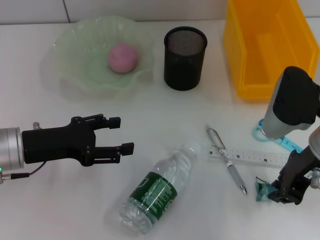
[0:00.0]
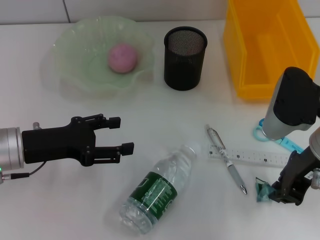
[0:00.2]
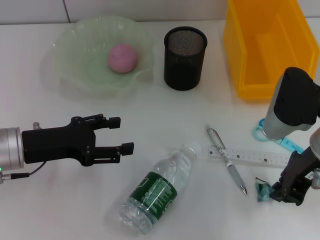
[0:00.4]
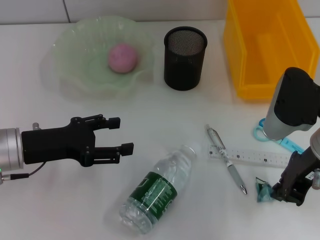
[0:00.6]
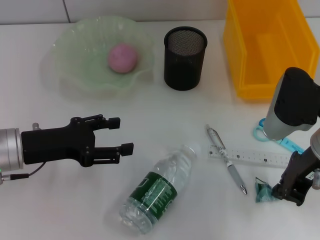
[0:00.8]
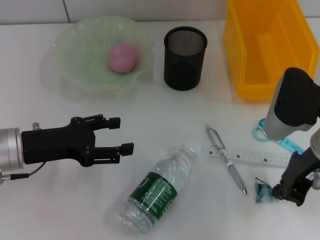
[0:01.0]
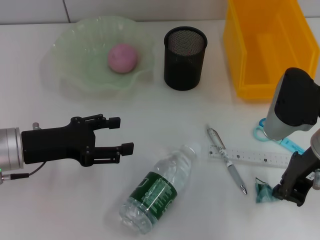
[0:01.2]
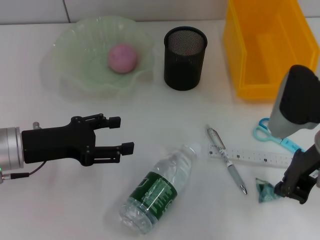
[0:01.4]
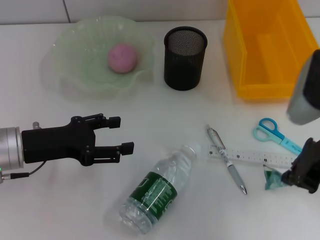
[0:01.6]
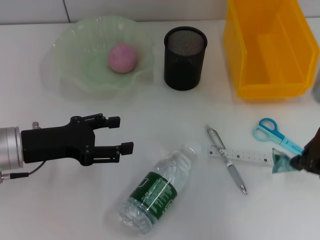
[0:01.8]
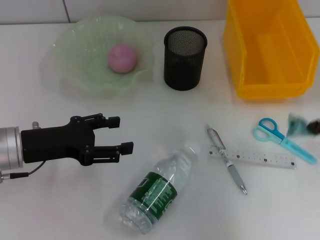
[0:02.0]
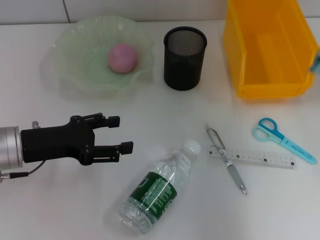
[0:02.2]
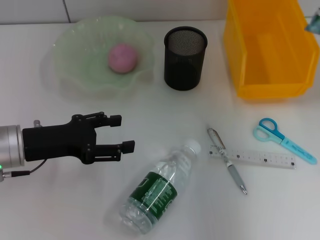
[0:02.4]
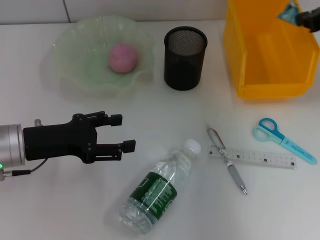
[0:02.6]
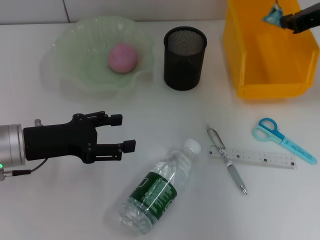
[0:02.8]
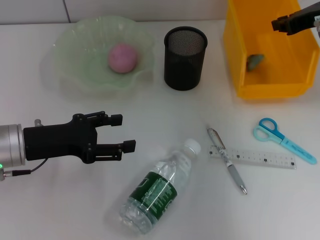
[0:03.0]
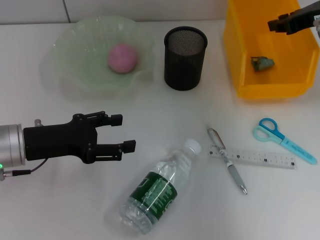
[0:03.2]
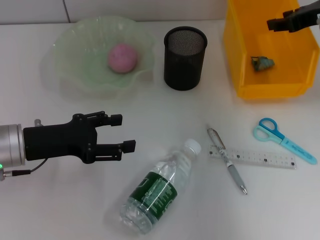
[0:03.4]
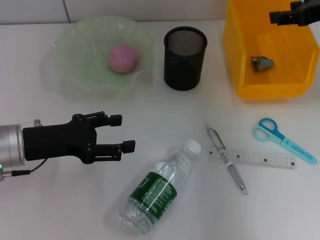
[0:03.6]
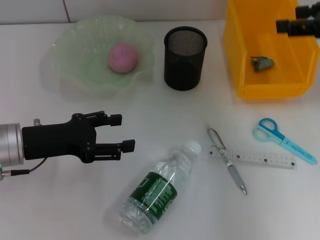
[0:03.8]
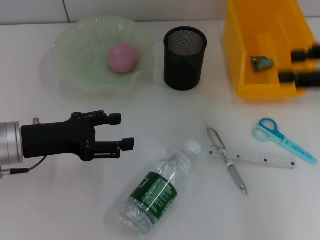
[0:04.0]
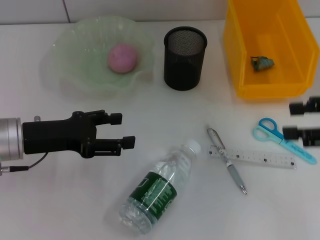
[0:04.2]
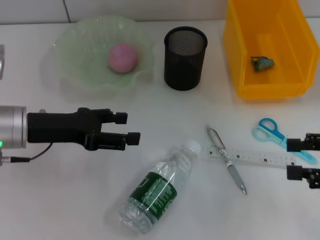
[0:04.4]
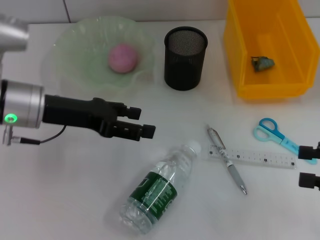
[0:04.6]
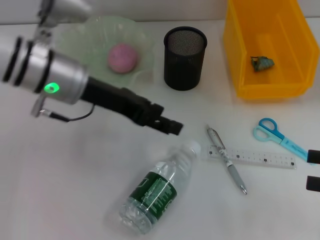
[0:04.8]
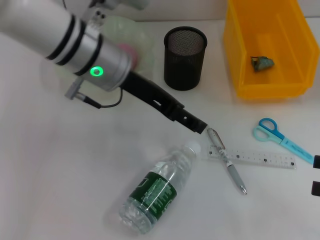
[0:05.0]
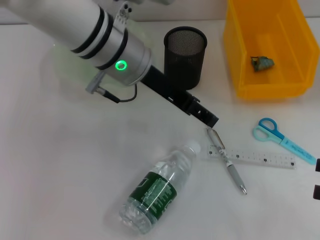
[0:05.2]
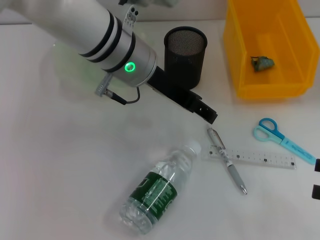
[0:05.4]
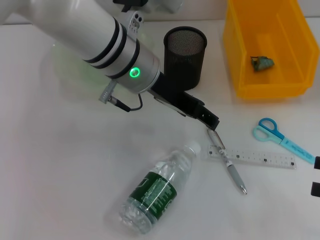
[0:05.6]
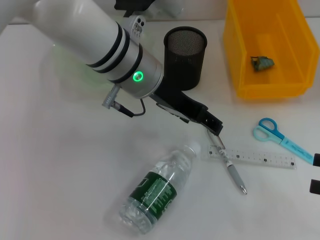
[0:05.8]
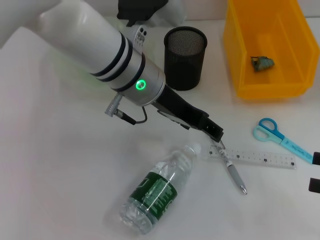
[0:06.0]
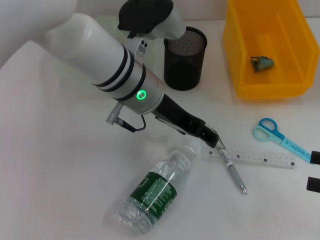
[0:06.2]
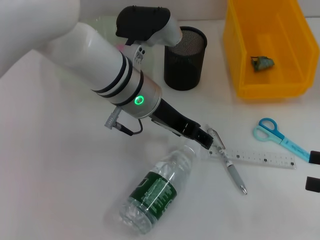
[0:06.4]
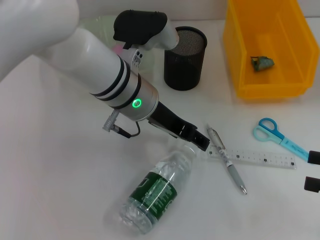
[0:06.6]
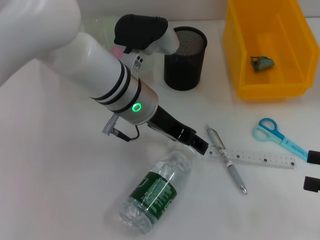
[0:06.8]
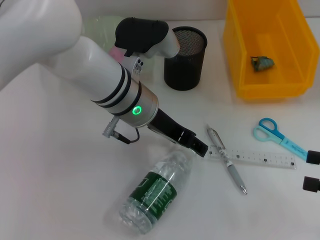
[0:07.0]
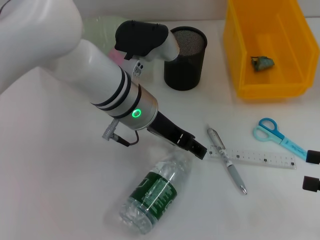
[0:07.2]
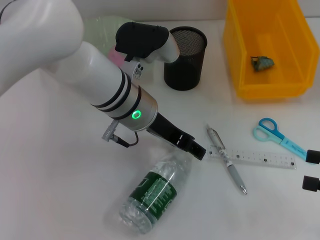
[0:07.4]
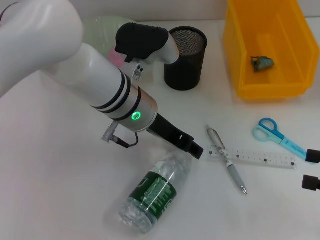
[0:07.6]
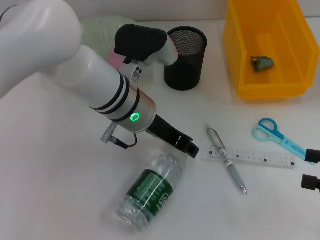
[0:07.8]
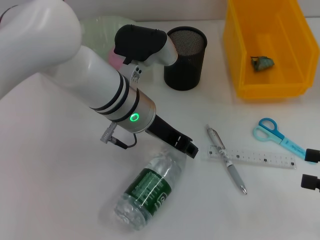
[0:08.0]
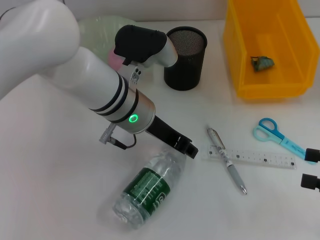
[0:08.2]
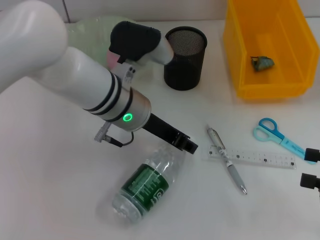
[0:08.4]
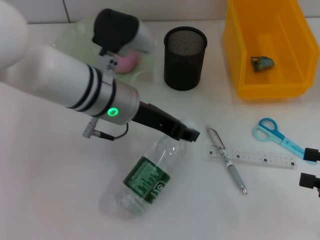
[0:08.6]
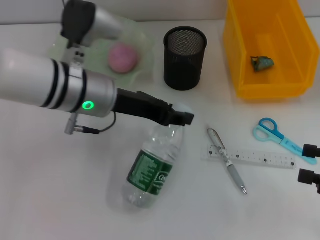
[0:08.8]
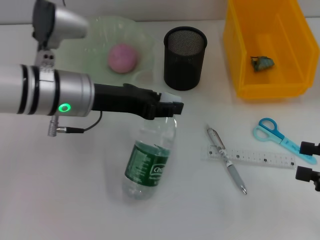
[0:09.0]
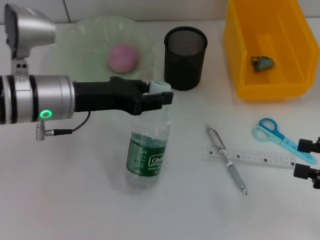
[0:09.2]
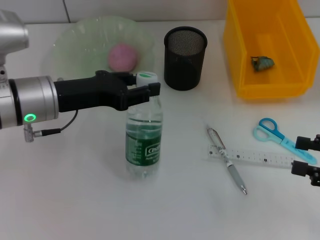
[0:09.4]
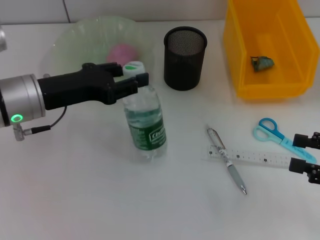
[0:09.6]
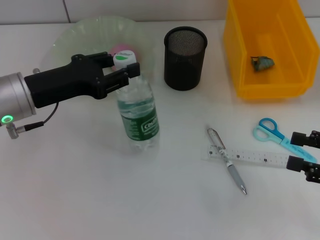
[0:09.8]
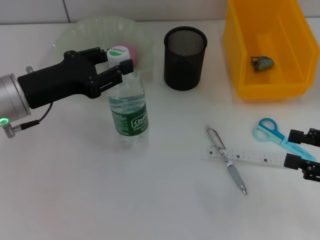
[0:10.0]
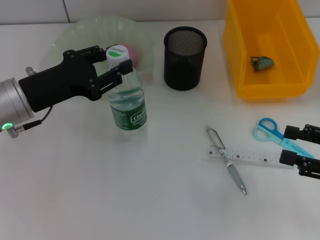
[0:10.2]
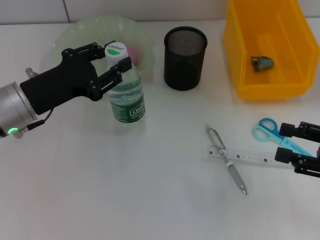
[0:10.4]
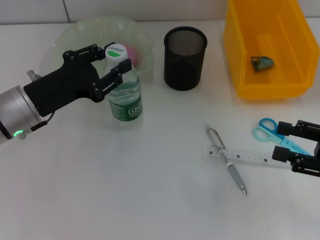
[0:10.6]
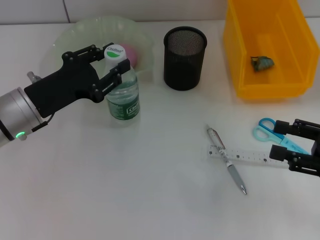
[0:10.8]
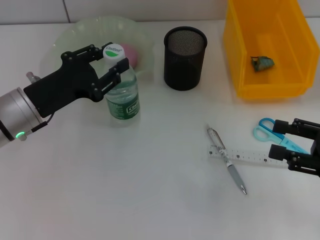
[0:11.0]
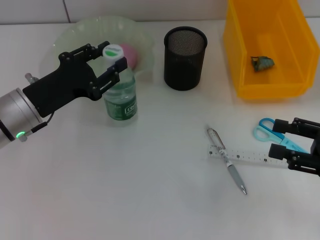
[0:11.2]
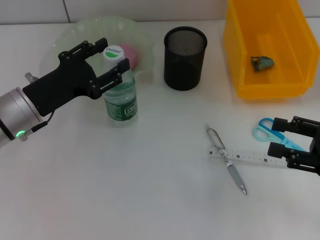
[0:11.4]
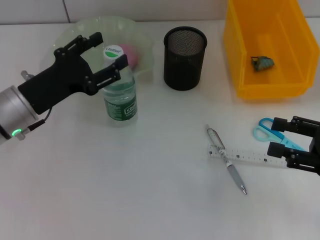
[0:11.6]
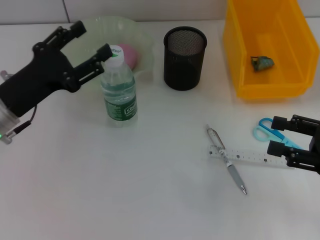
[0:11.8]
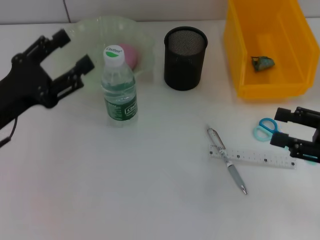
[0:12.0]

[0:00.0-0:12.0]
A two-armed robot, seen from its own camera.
Step, 0:01.4 to 0:03.0: Place the plastic into the trash can with the right hand.
Step, 0:03.2 to 0:08.0: Grab the water bottle with the left hand.
Step, 0:08.2 to 0:11.2: Place the water bottle on the table with the left hand.
0:00.0 to 0:01.6: The grippers stay close to where they were, moving slightly.
0:01.6 to 0:03.0: The right gripper goes roughly 15 cm forward.
0:03.0 to 0:04.4: The right gripper is displaced backward by about 20 cm, and opens its fingers.
0:04.4 to 0:06.0: The left gripper heads to the right, covering approximately 20 cm; the right gripper moves roughly 5 cm.
0:06.0 to 0:07.6: The left gripper changes place by roughly 5 cm.
0:07.6 to 0:09.0: The left gripper heads to the left, covering approximately 10 cm, and closes up.
0:09.0 to 0:10.4: The left gripper travels to the left by about 10 cm.
0:10.4 to 0:12.0: The left gripper moves about 5 cm, and opens.

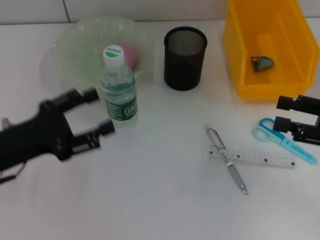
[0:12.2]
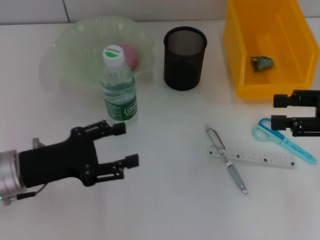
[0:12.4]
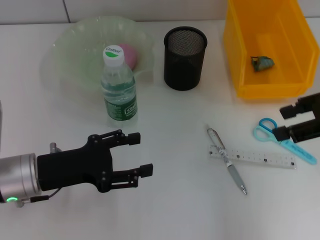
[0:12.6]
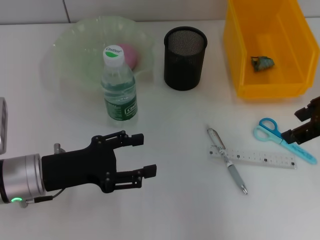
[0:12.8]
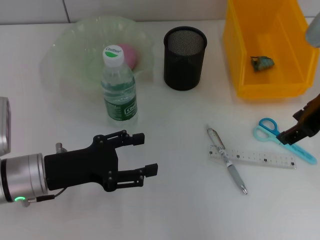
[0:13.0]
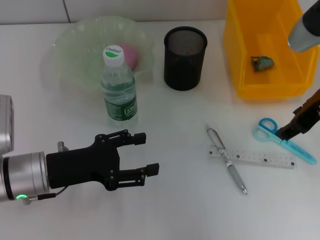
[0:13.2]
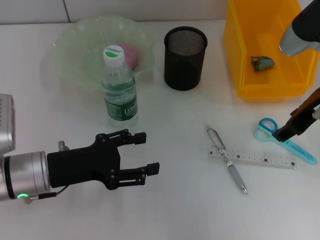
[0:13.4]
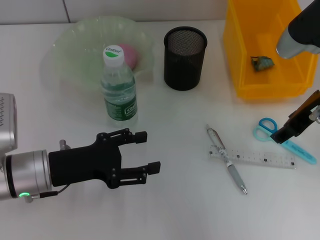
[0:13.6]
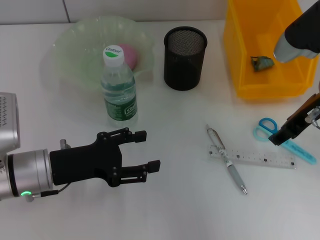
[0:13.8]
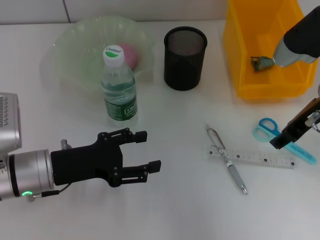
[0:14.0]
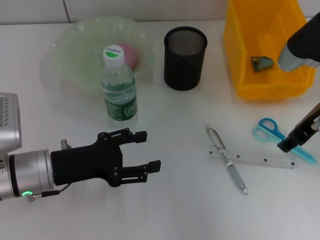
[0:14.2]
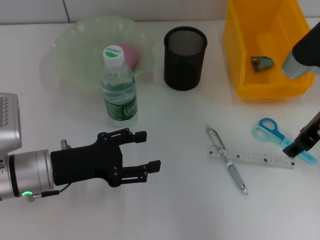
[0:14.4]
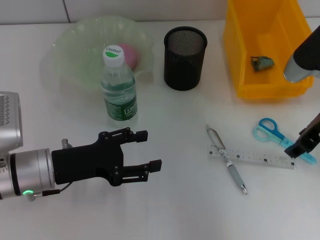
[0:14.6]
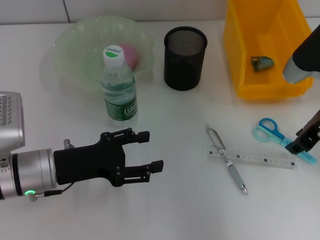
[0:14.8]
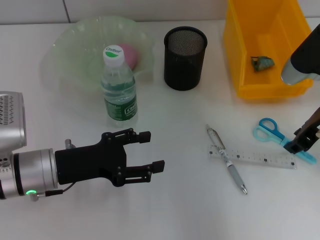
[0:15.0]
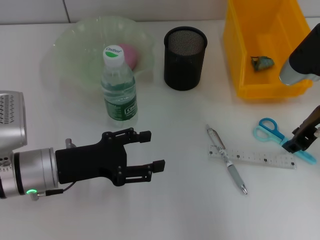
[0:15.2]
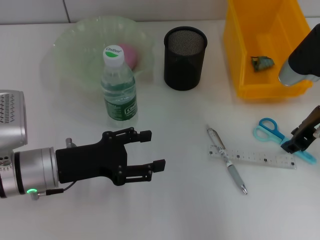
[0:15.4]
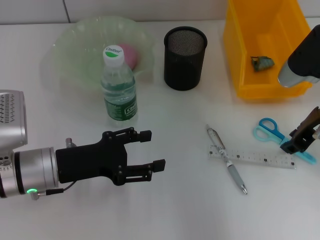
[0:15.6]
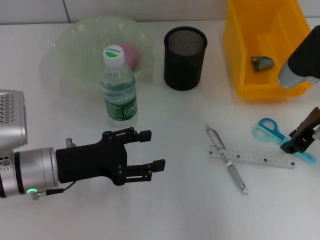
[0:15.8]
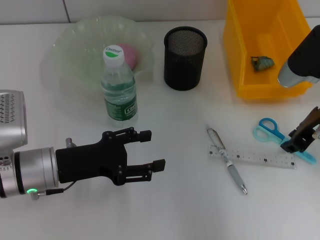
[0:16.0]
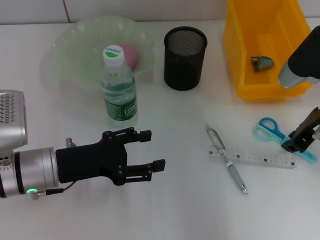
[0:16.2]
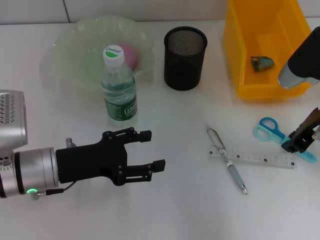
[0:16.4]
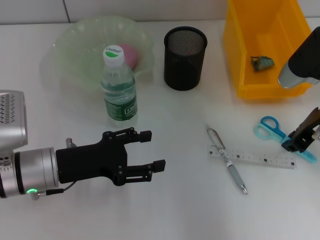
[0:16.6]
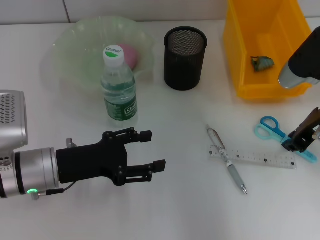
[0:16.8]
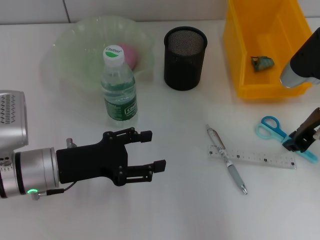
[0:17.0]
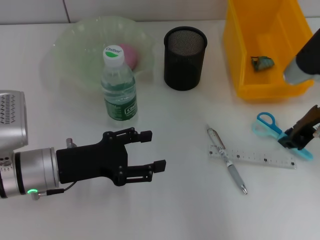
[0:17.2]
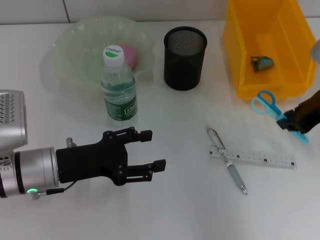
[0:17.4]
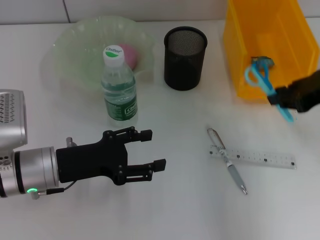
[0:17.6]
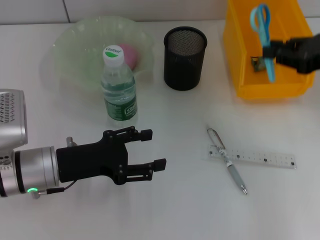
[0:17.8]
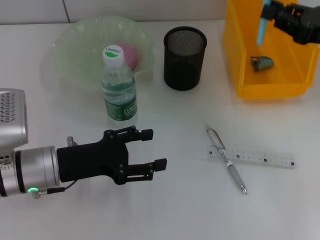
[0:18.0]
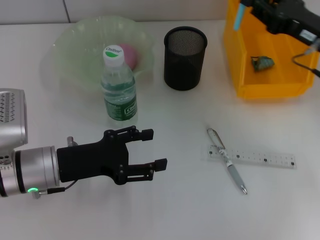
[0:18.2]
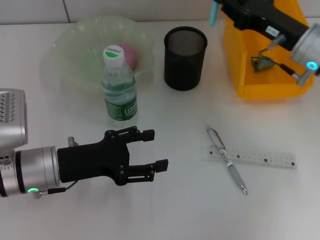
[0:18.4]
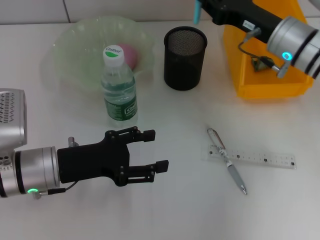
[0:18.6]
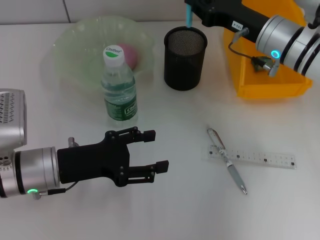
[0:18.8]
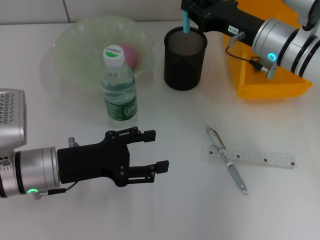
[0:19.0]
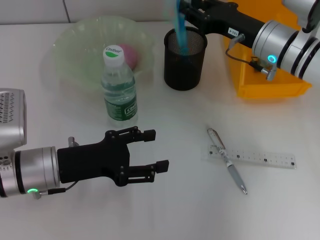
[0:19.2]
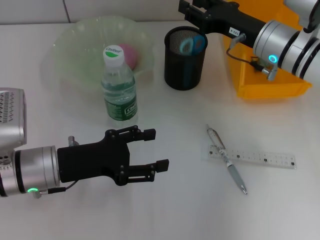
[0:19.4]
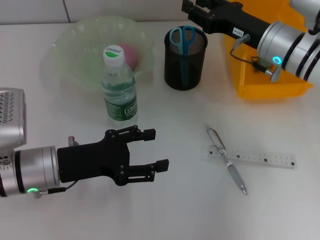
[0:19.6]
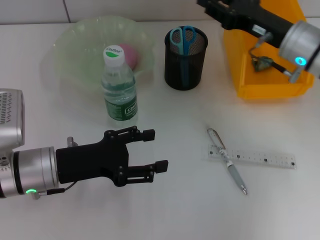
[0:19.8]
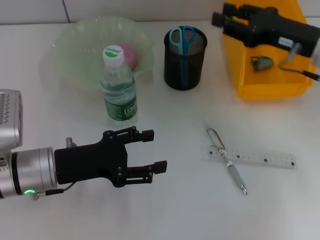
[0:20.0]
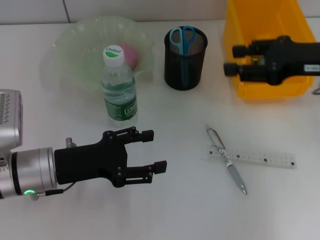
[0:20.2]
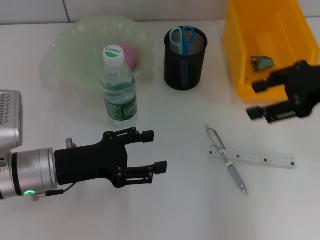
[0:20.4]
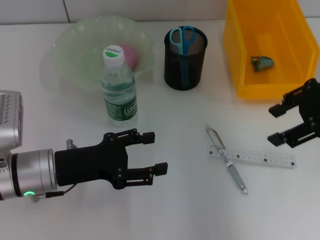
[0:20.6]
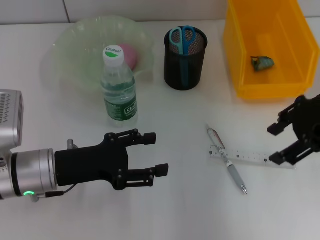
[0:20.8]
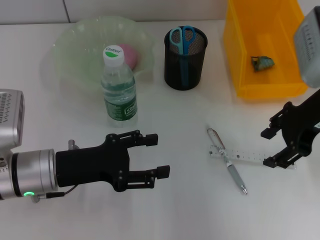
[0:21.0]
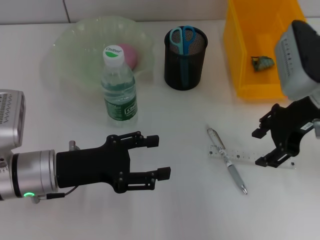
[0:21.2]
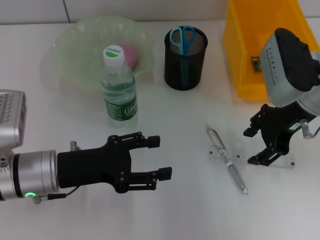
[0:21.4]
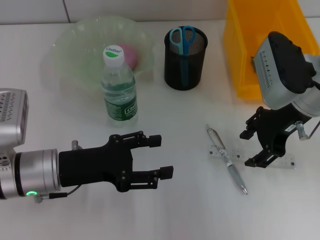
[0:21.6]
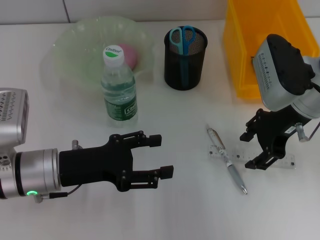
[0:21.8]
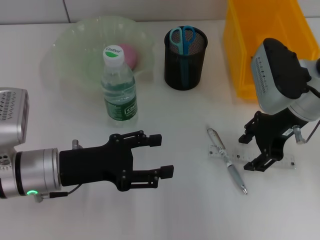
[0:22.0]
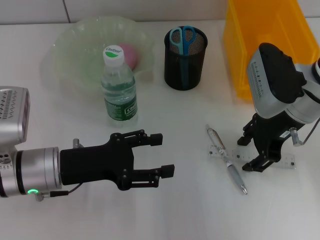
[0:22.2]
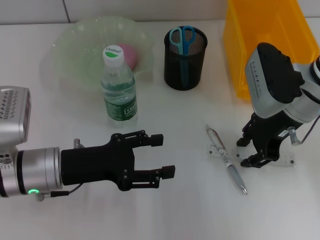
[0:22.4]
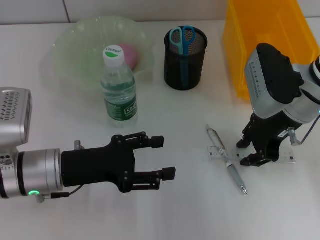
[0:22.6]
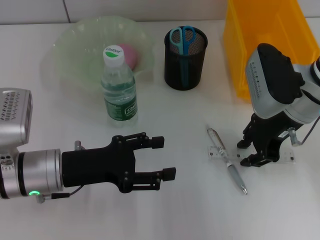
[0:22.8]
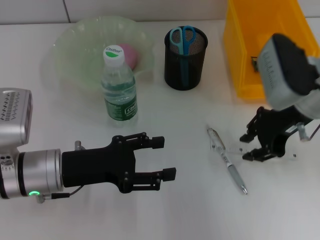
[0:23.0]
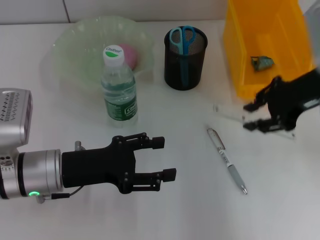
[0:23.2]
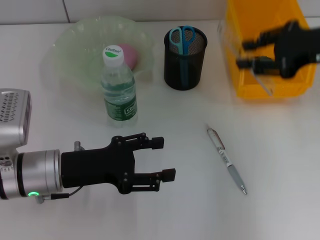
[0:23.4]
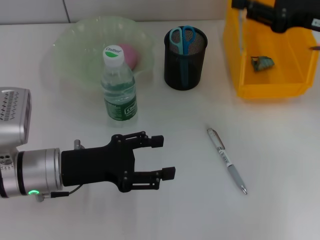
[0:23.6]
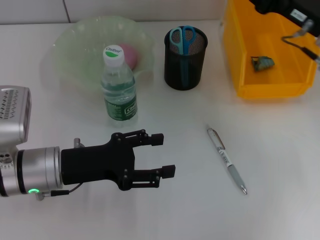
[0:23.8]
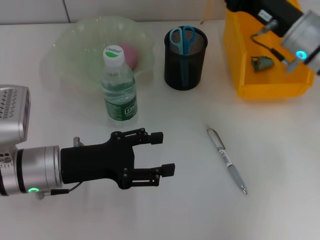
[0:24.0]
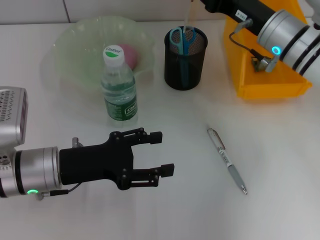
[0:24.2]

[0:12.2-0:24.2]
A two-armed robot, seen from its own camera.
Step, 0:12.2 to 0:16.8: Grab the blue scissors with the right hand.
Step, 0:17.0 to 0:19.4: Place the blue scissors into the pen holder with the right hand.
Step, 0:19.6 to 0:22.6: Grab the ruler with the right hand.
0:12.2 to 0:13.8: The right gripper heads to the left, forward and upward, covering about 15 cm; the left gripper shifts some 5 cm to the right.
0:13.8 to 0:15.2: The grippers make only small movements.
0:15.2 to 0:16.6: The two grippers keep their place.
0:21.2 to 0:22.6: The grippers make only small movements.
0:22.6 to 0:24.2: The right gripper reaches some 10 cm upward, then returns.
